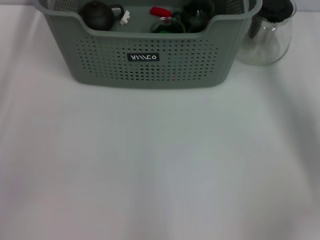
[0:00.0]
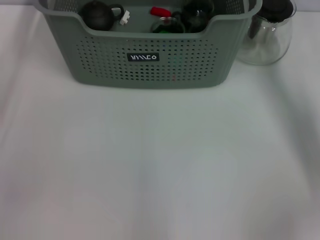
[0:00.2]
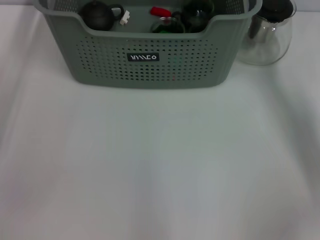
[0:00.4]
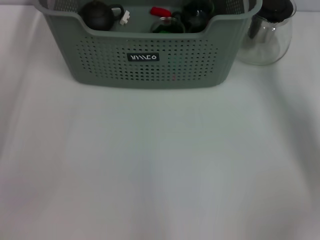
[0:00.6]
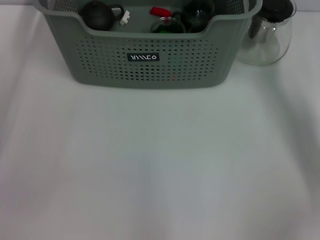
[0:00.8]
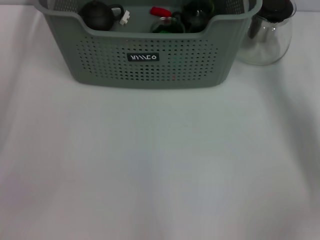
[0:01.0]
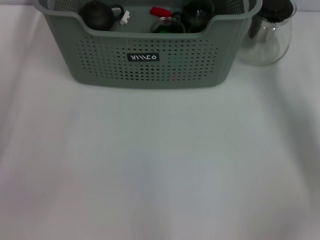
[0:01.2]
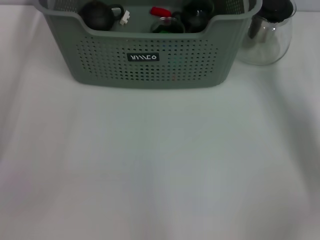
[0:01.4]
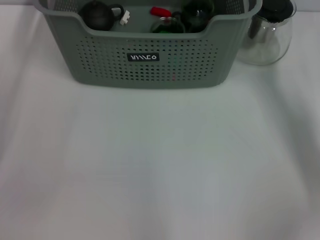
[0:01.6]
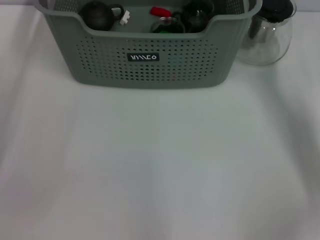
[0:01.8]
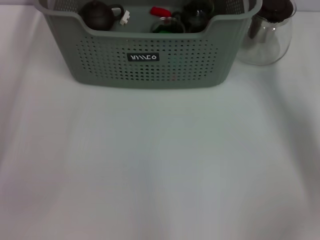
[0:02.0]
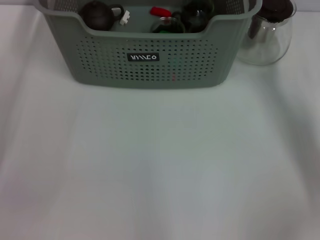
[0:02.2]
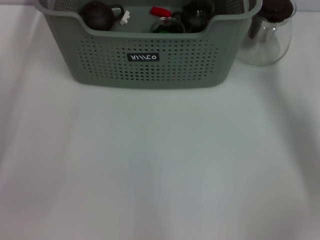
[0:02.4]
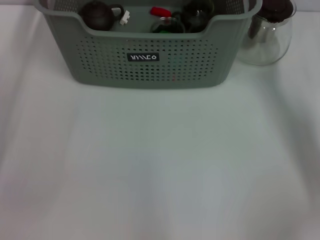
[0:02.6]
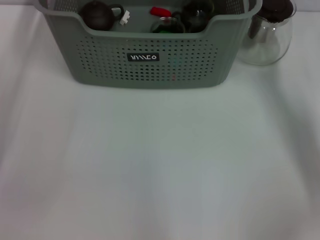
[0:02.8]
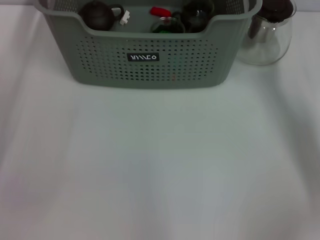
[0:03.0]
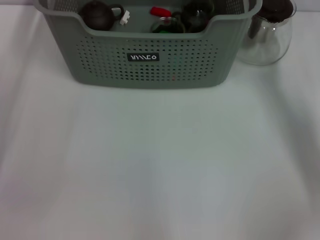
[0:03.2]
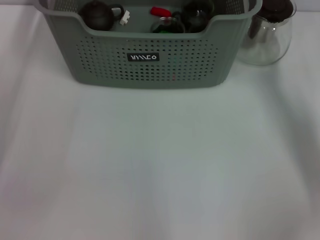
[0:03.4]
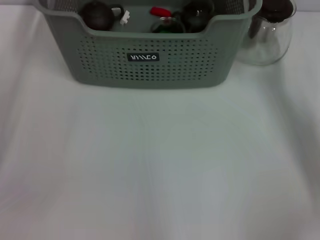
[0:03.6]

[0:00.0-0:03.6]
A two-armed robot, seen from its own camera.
Task of the whole recording: pick up the teacup on the table and place it into the storage bin, pick up the block on the table and place it into the storage bin.
0:01.8 to 0:03.6: Both grippers stay about where they are.
